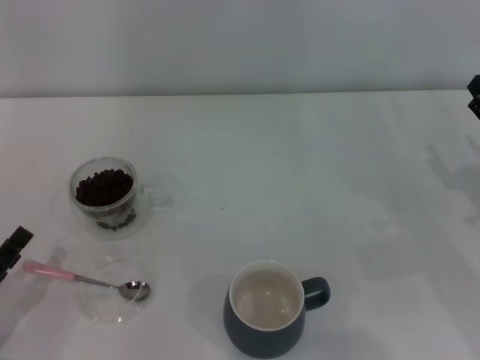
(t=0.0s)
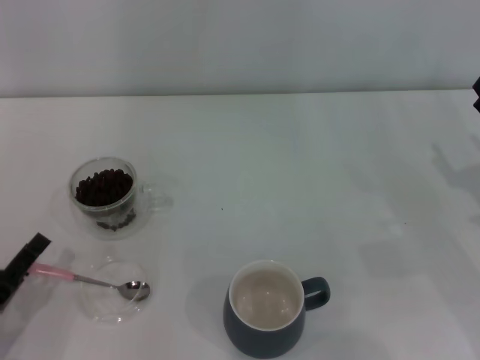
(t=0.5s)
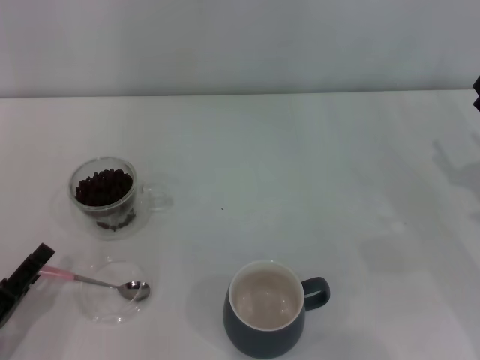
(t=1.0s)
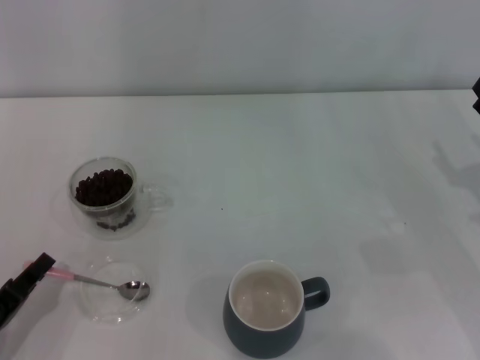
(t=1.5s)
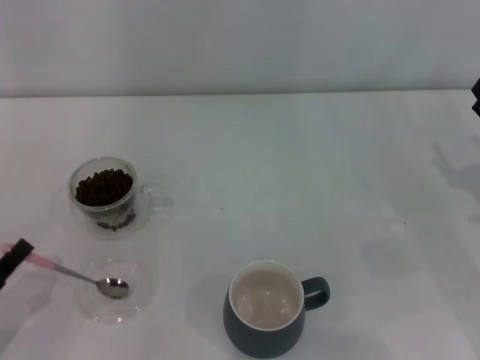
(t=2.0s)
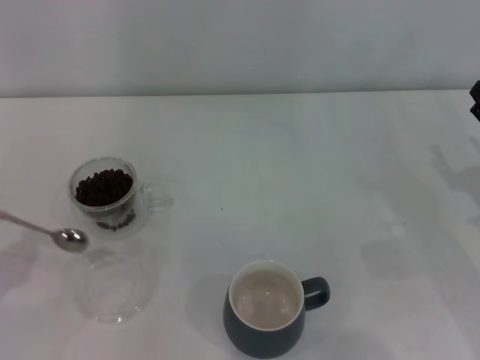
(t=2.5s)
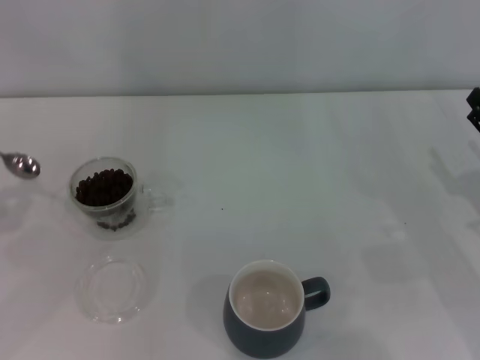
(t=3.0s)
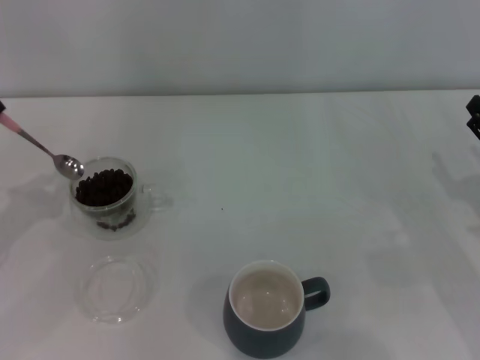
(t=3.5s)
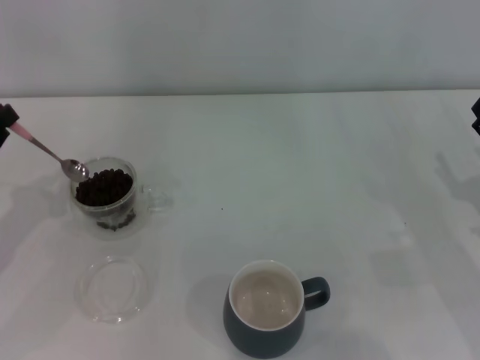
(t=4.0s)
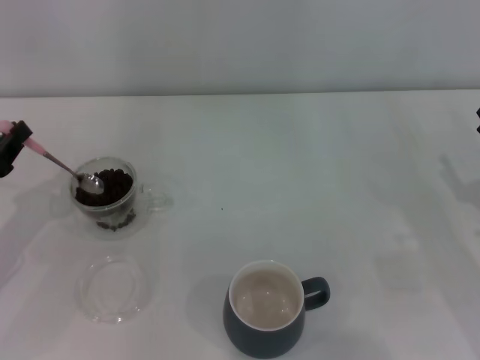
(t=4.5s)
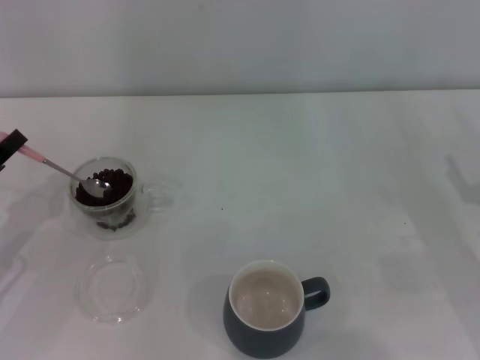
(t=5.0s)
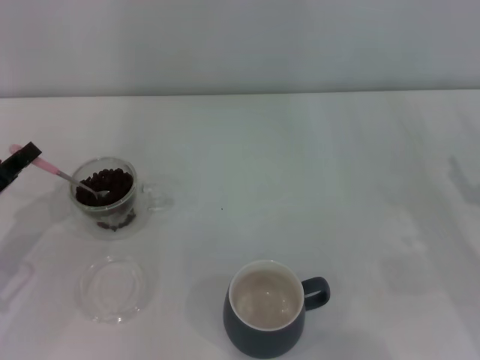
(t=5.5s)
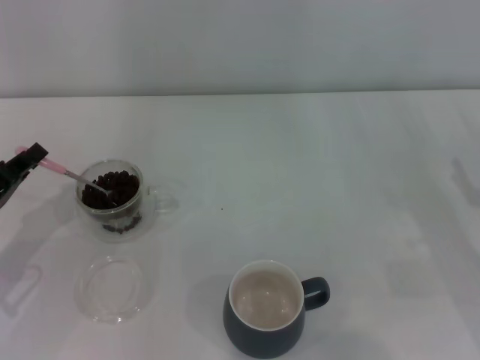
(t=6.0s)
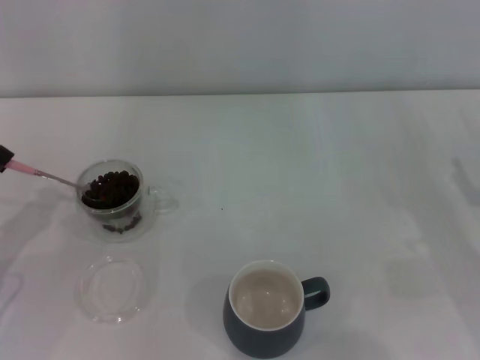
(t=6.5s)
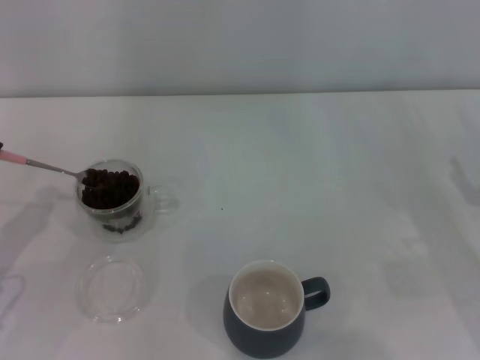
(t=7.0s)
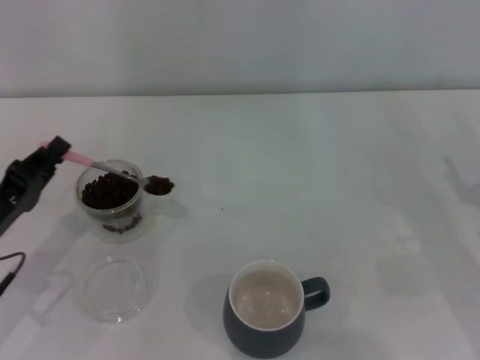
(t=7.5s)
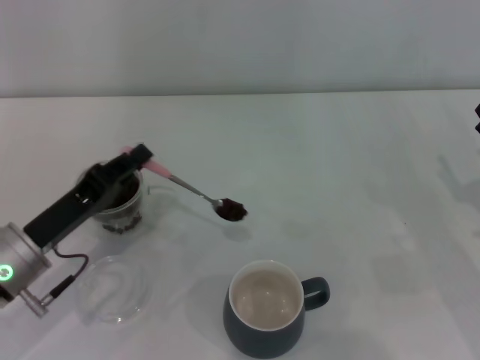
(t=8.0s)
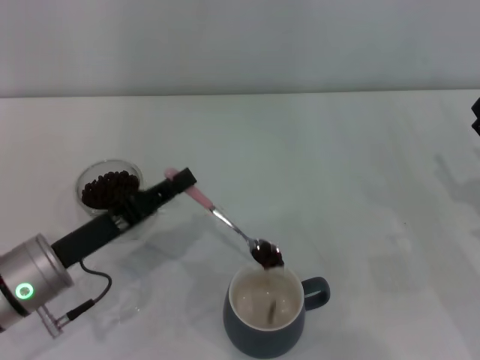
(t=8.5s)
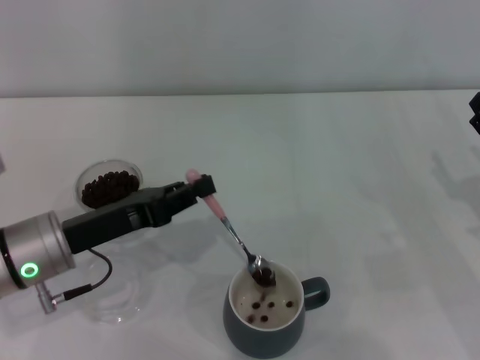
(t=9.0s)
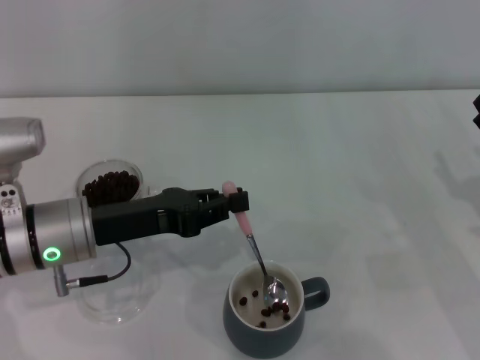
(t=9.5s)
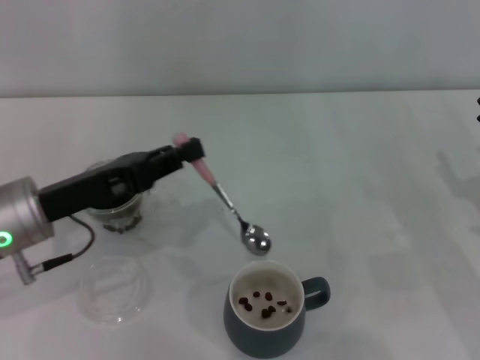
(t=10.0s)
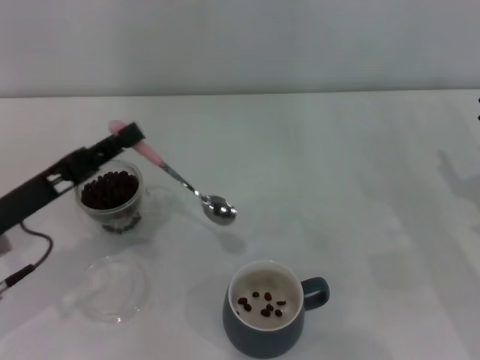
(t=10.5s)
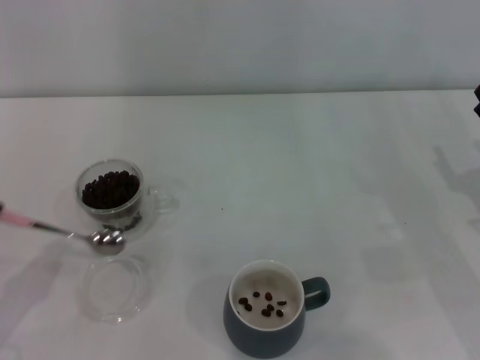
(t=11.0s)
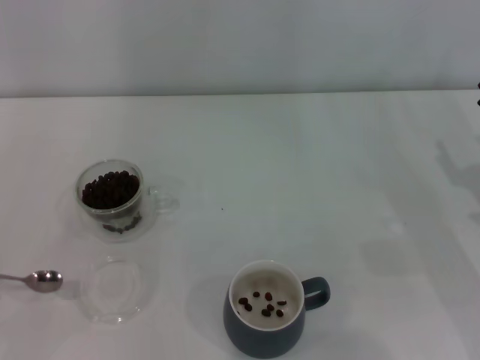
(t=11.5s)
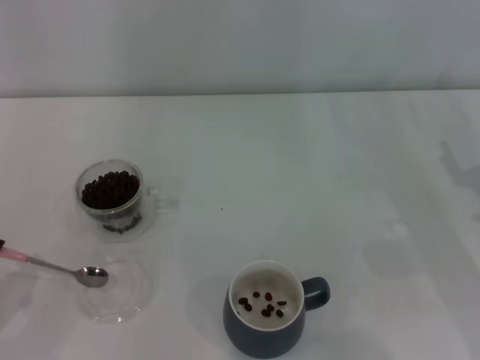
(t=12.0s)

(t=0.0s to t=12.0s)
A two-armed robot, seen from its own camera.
Task of the whole recording: Use a pink spoon to take out the coffee beans from the glass and pour them into the gray cup.
Step, t=0.0s - t=2.0s: Pick up the spoon with the right gripper.
t=0.0s - t=2.0s: The left gripper closes its fingers.
t=2.0s - t=4.0s: The left gripper shifts roughly 15 cm forward and upward.
t=6.0s - t=8.0s: The left gripper travels to the right by some 10 cm.
t=8.0s - t=10.0s: The left gripper is displaced upward by roughly 5 cm.
t=10.0s - t=12.0s: The left gripper is displaced backward, to the left and downward by some 20 cm.

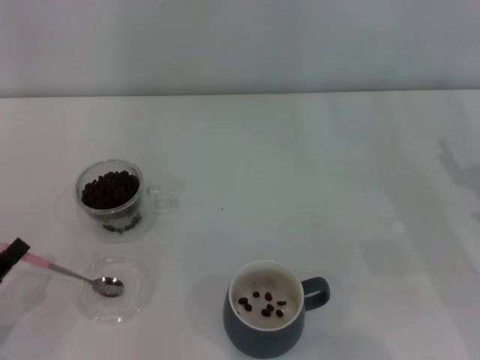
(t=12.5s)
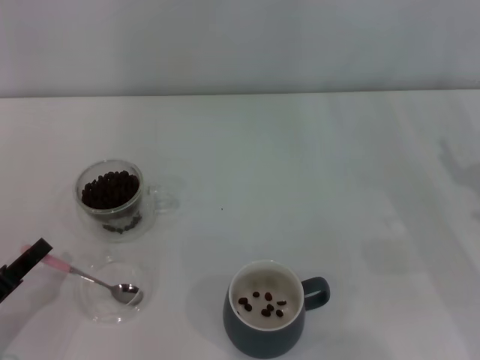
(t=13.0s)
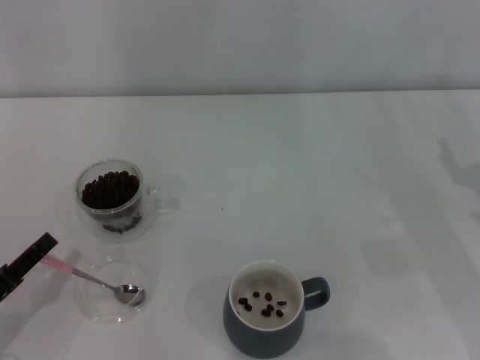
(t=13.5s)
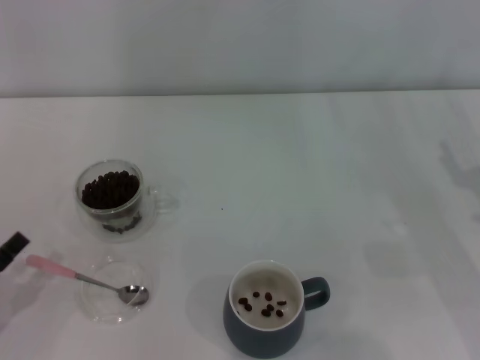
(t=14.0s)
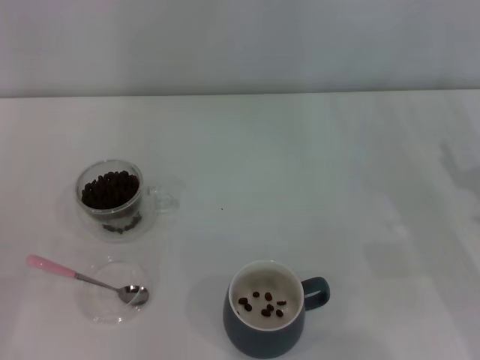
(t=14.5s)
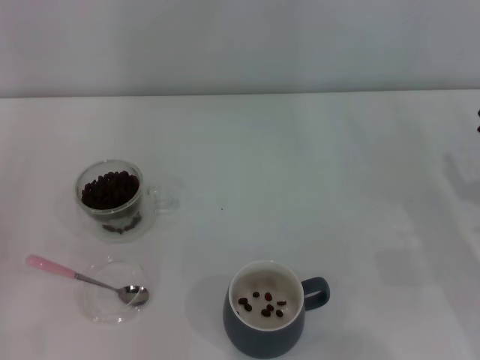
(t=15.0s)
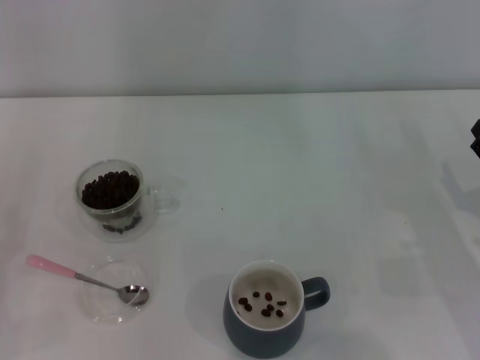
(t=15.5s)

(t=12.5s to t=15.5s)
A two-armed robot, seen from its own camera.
Task of the whole recording: Use a pink spoon to take out the coffee beans from the glass and pour them into the gray cup.
t=12.5s - t=14.0s: The left gripper opens its fingers.
